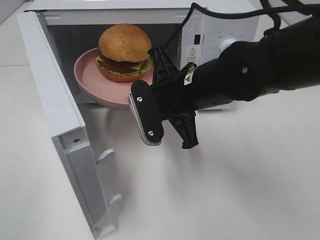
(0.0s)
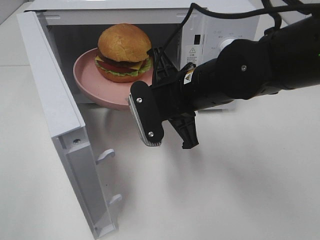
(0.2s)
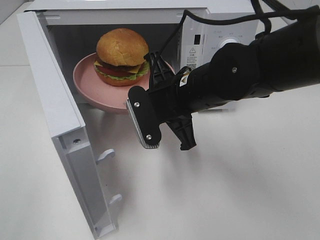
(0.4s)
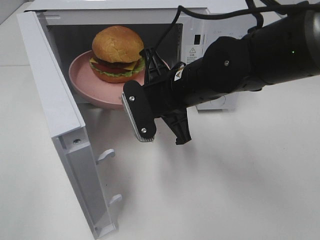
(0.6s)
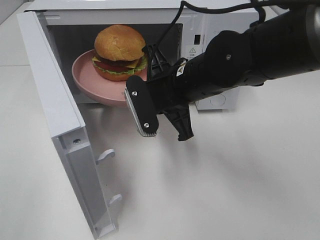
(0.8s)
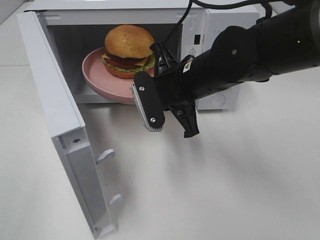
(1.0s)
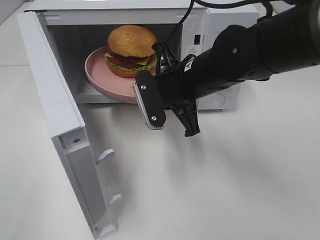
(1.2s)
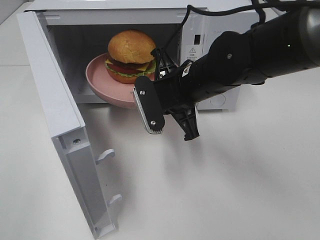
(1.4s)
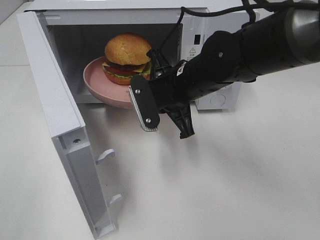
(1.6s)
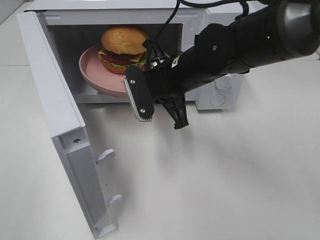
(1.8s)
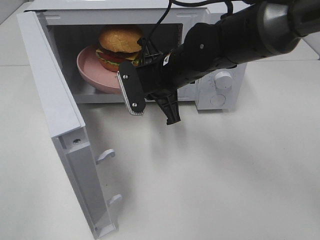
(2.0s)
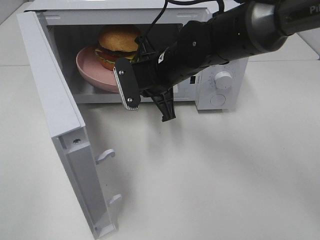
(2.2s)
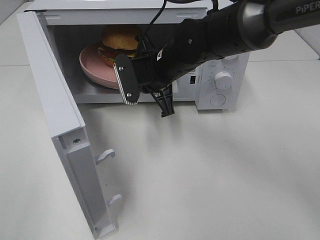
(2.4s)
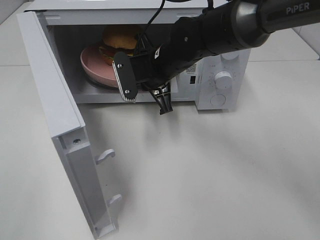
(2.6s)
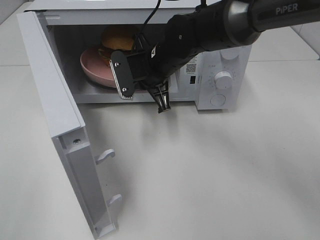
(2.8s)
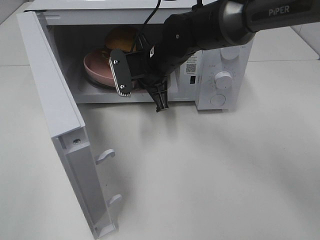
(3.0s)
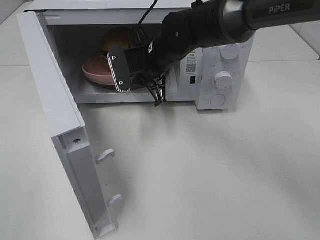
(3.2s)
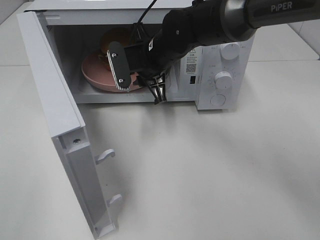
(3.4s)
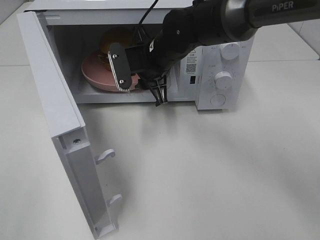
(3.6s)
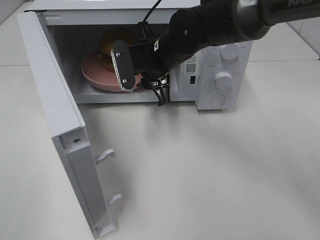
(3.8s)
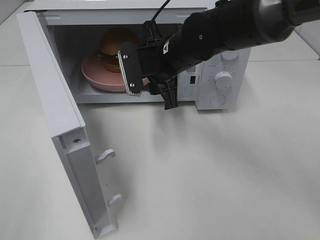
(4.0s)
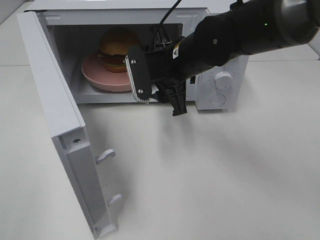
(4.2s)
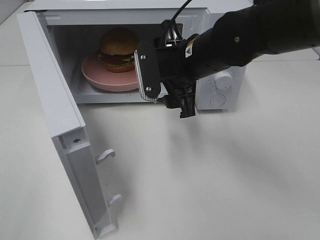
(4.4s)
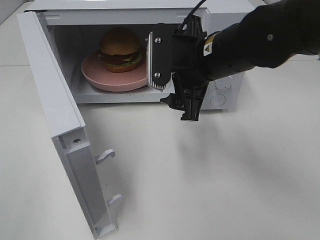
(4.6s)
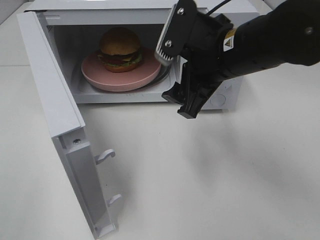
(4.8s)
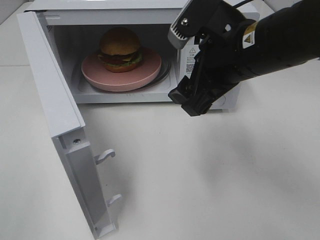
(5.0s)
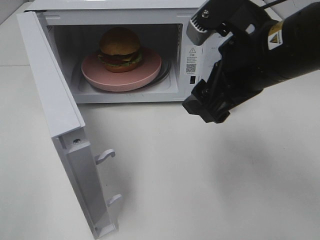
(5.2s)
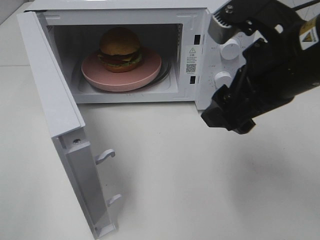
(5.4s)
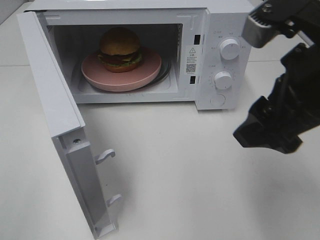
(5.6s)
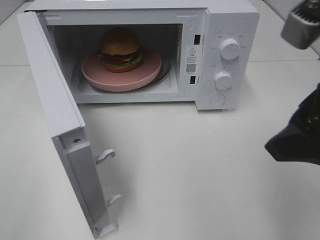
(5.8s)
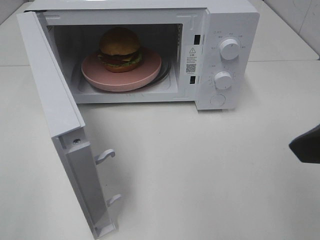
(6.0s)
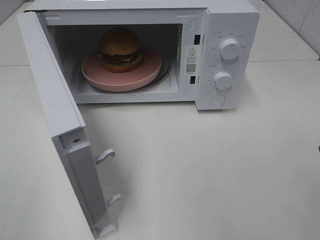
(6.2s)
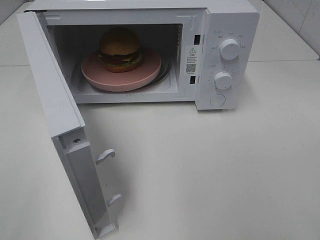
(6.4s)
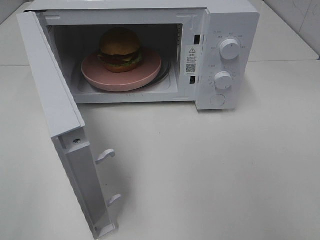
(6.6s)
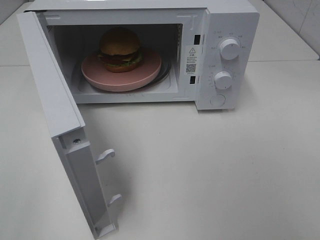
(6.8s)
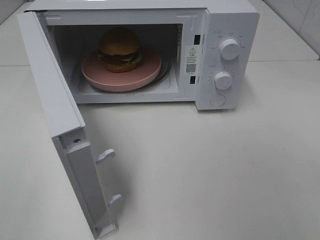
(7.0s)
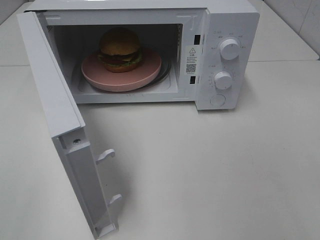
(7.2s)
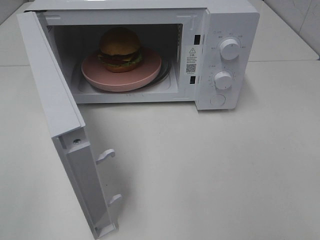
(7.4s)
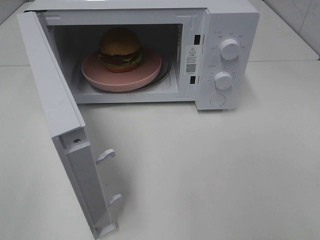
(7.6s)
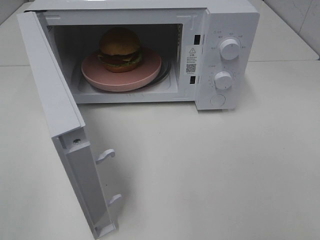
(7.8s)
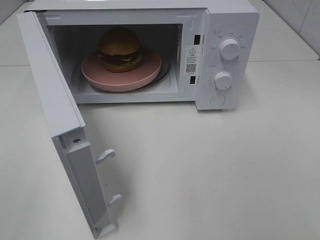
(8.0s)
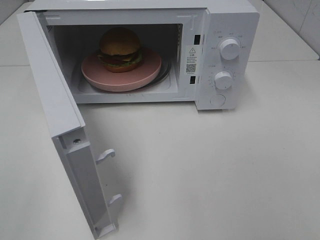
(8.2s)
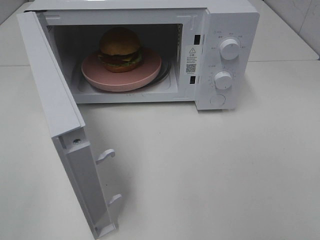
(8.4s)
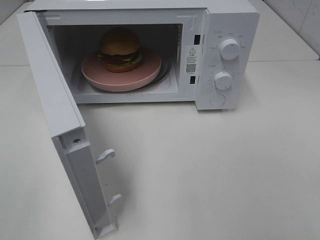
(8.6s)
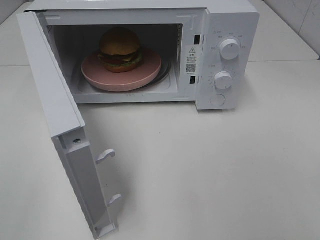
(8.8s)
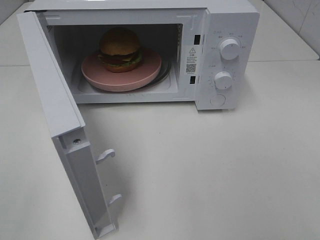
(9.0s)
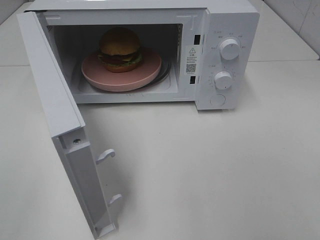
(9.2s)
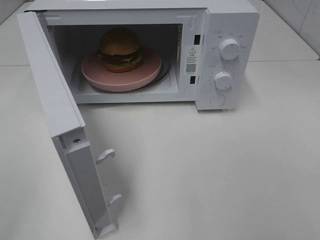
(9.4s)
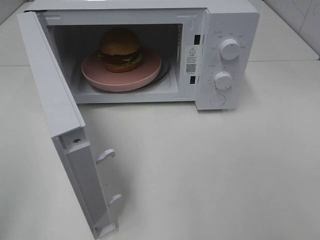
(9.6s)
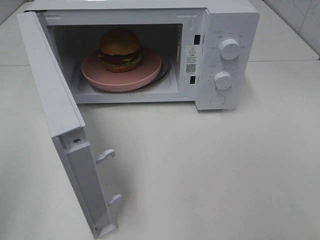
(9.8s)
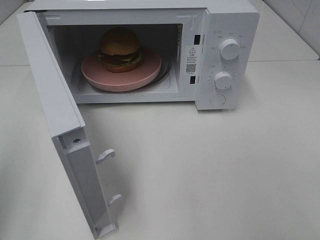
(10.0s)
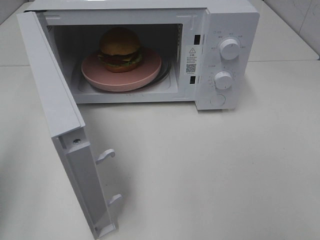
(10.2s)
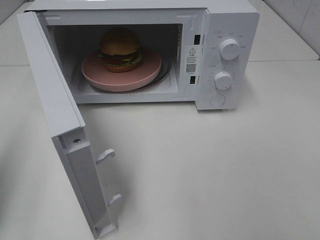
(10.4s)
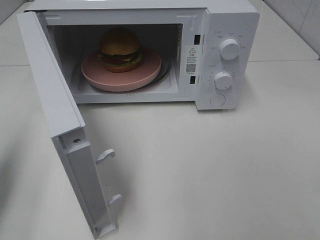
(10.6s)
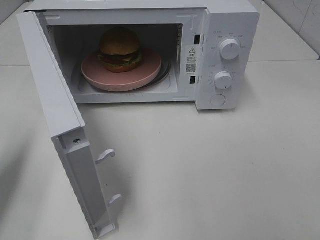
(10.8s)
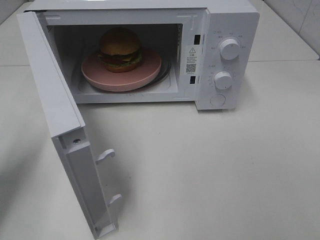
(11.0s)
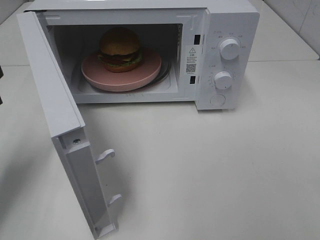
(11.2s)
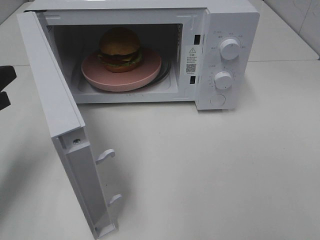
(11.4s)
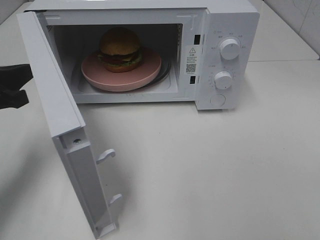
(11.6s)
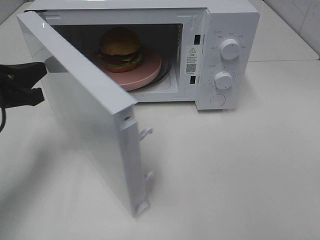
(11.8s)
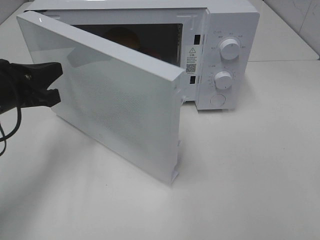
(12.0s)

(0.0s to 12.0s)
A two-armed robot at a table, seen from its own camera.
Task of the whole recording: Heat the burger.
Step, 0.0s - 3.2s: Right hand: place the plate in the microwave.
0.0s - 1.6s: The grippers move only a little.
1.6s - 3.0s: The right gripper shifts some 10 cm forward.
3.0s - 4.4s: The right gripper shifts approximately 10 cm backward and to the right, and opens up.
4.4s - 6.0s: The right gripper is displaced backward, to the right and upward by roughly 25 cm.
6.0s - 7.6s: The right gripper heads backward and to the right, covering some 15 cm.
7.6s - 9.0s: Neither gripper changes place.
9.0s - 10.4s: The left gripper shifts some 15 cm forward, and closes.
10.4s - 12.0s: The left gripper moves forward, to the right and downward, roughly 20 cm.

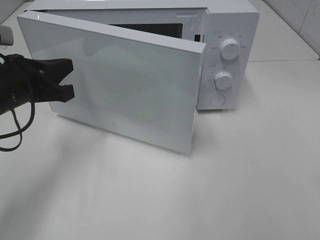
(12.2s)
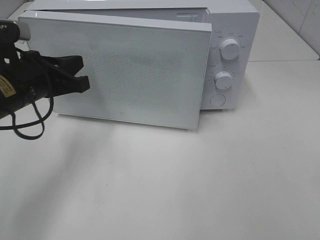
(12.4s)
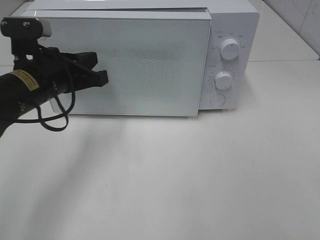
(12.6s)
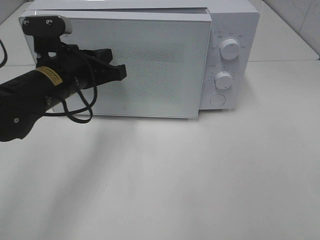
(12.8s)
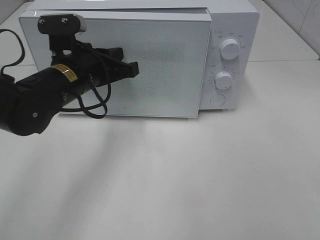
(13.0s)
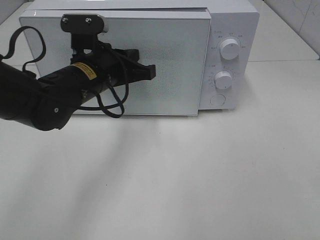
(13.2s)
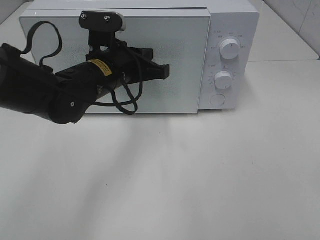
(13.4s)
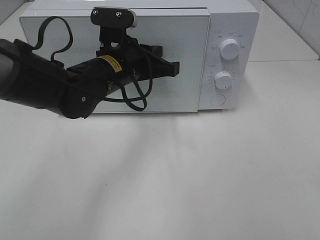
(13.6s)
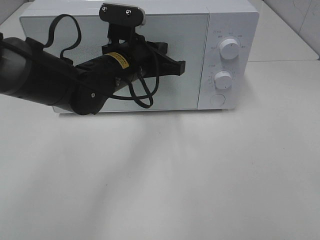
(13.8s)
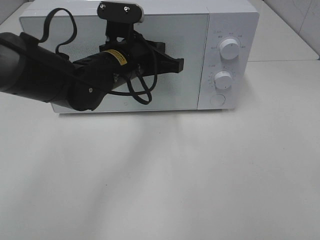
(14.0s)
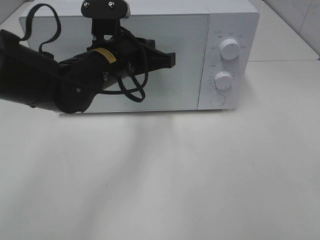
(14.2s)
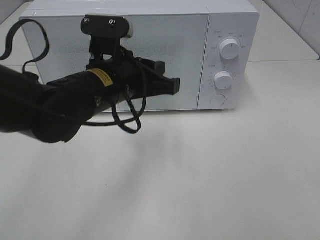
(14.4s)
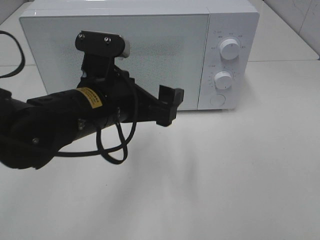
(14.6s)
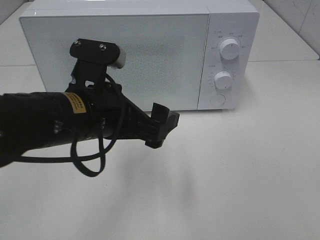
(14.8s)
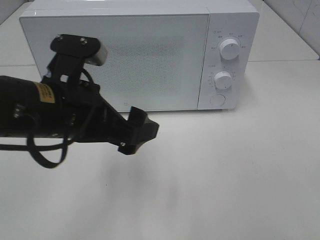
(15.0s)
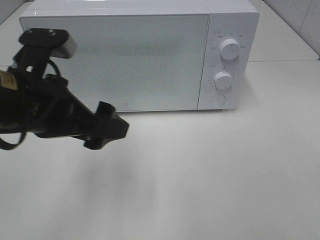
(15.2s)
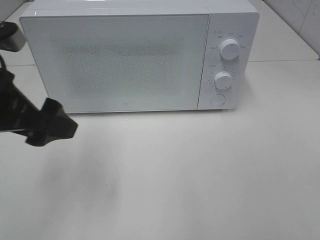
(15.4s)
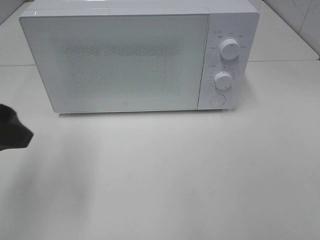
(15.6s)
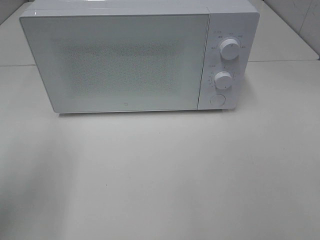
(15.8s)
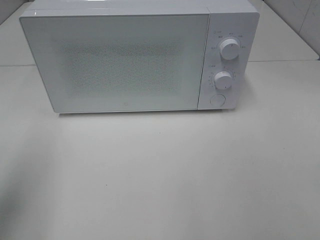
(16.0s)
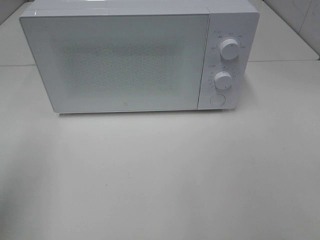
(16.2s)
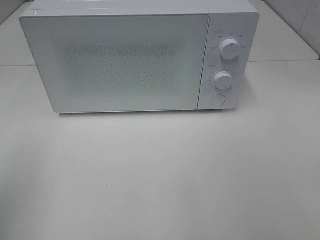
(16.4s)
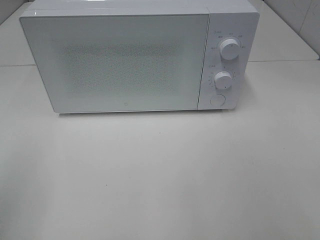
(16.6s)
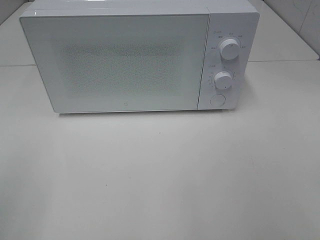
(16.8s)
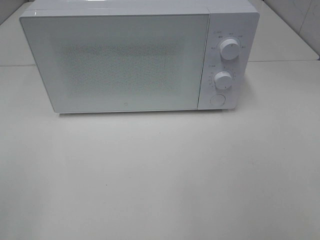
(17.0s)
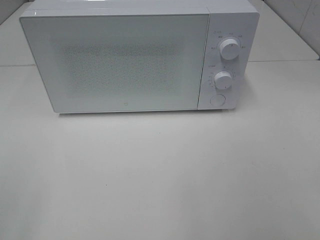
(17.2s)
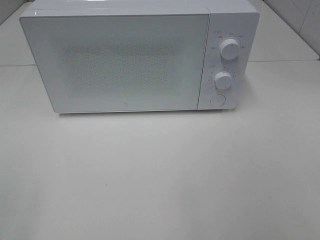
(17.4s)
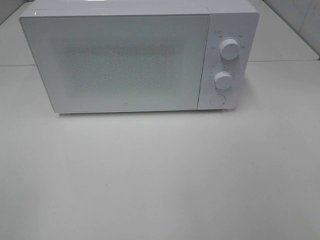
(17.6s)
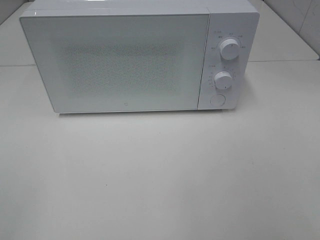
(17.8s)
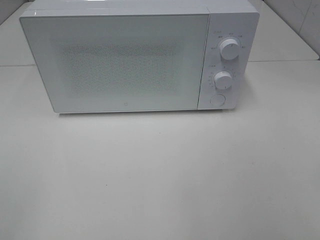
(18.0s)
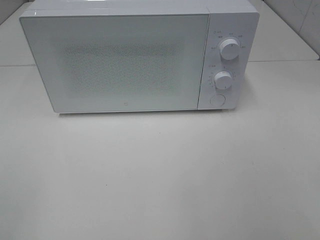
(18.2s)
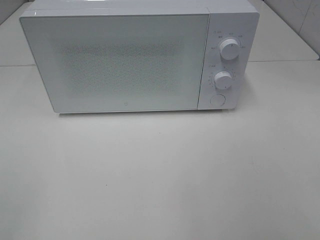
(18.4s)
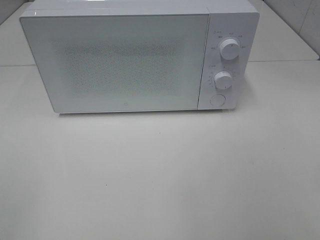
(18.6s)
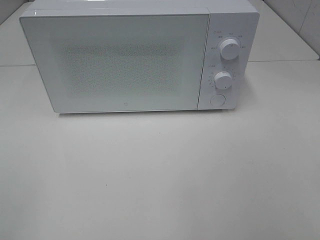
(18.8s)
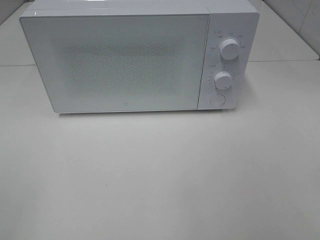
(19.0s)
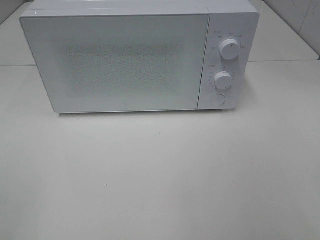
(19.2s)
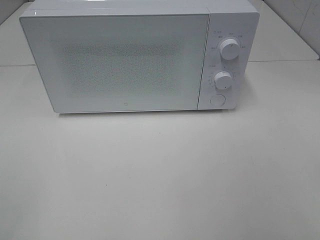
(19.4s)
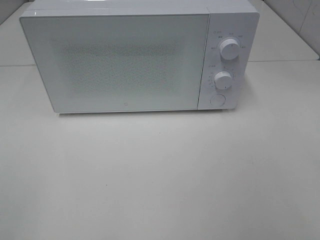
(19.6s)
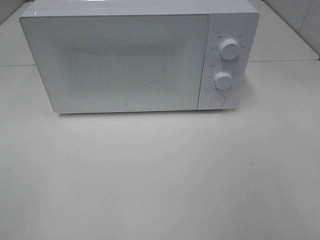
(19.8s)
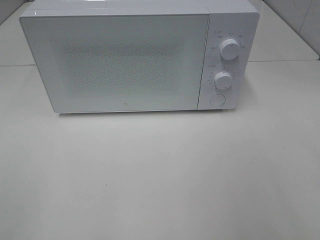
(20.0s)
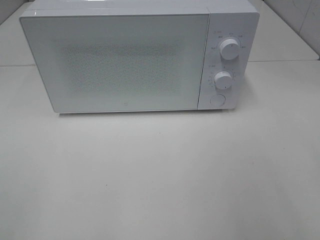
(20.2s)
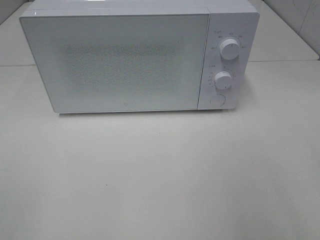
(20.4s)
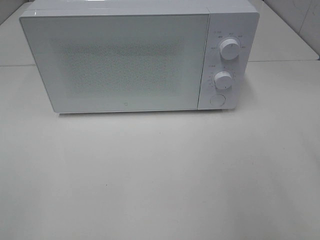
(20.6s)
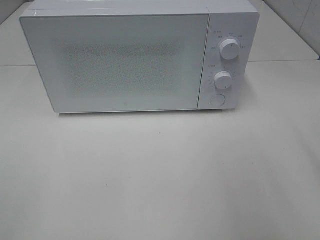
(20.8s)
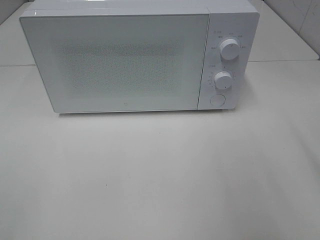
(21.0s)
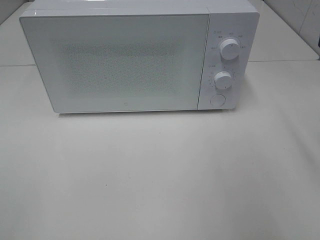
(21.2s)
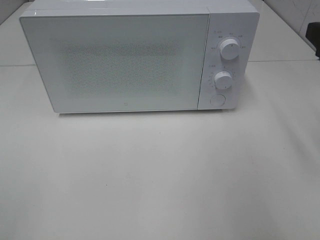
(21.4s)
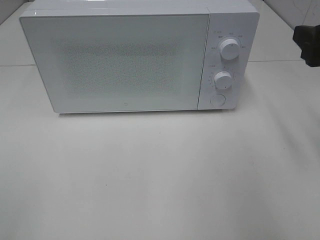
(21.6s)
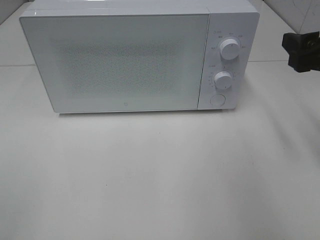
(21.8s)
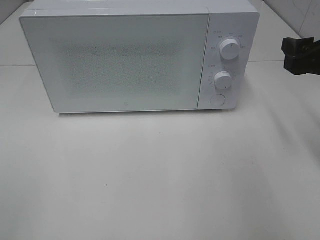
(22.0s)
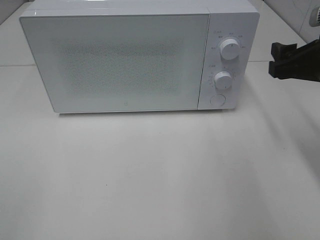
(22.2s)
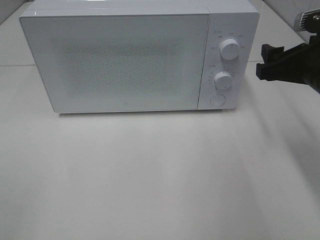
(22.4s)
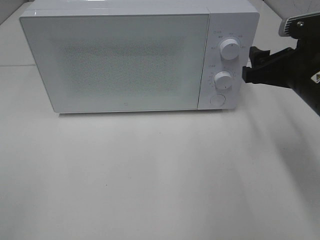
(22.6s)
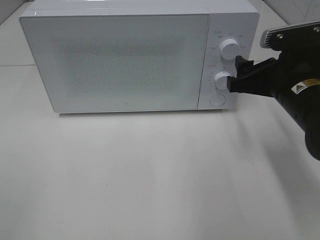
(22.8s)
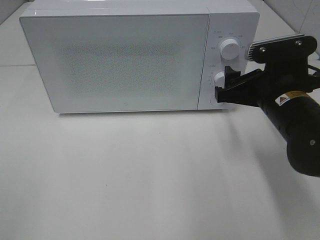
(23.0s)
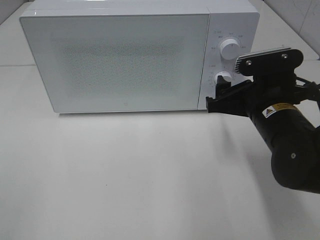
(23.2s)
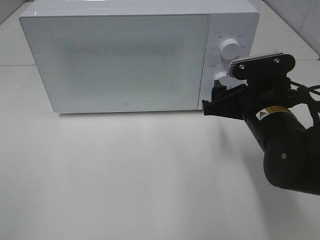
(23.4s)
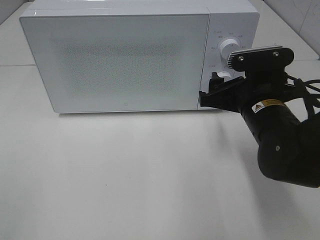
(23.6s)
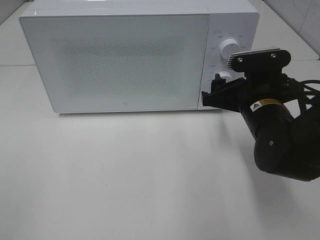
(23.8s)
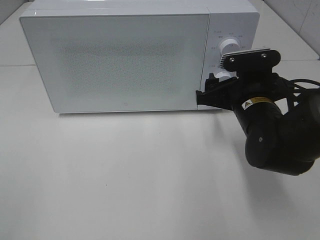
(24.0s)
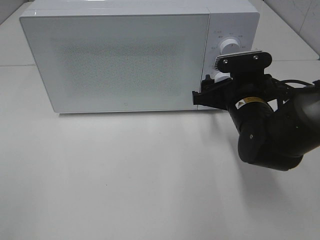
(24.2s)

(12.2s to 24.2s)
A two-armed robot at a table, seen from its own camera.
Task of the whole recording: Heat the burger.
12.2s - 13.8s: The left gripper moves to the right and forward, roughly 15 cm.
13.8s - 15.2s: The left gripper is displaced backward and to the left by roughly 15 cm, and opens up.
15.2s - 16.6s: The left gripper heads to the left and backward, covering roughly 20 cm.
21.2s - 22.6s: The right gripper shifts some 15 cm downward, forward and to the left.
22.6s - 24.2s: The right gripper moves downward and to the left, some 10 cm.
